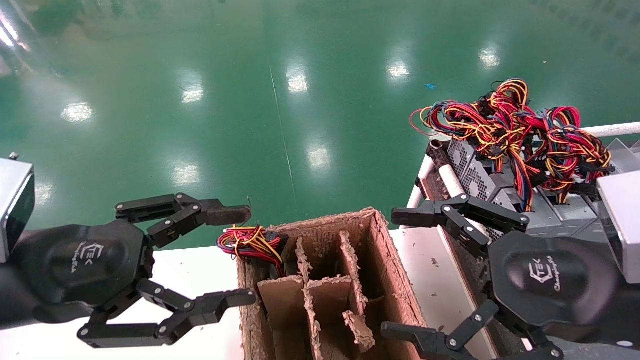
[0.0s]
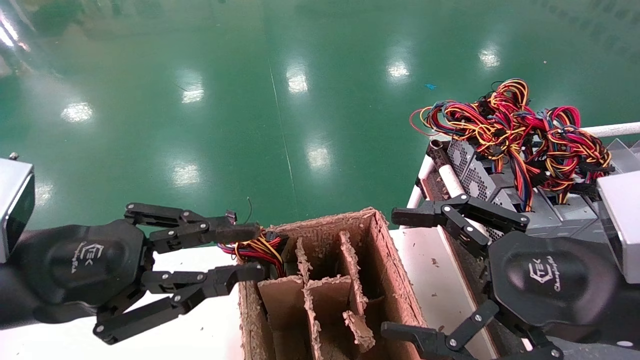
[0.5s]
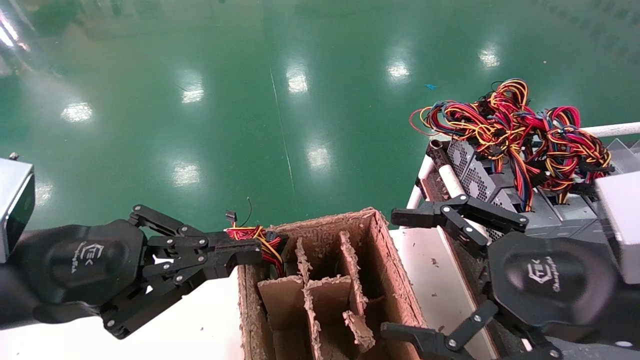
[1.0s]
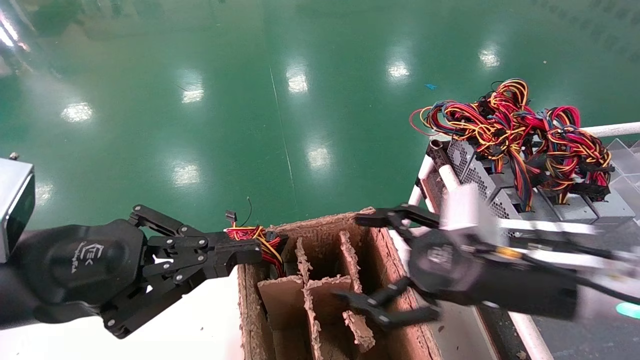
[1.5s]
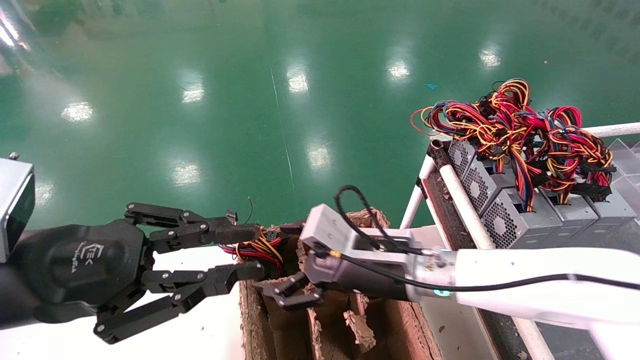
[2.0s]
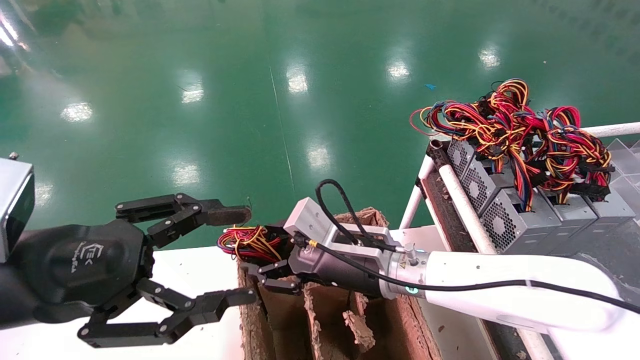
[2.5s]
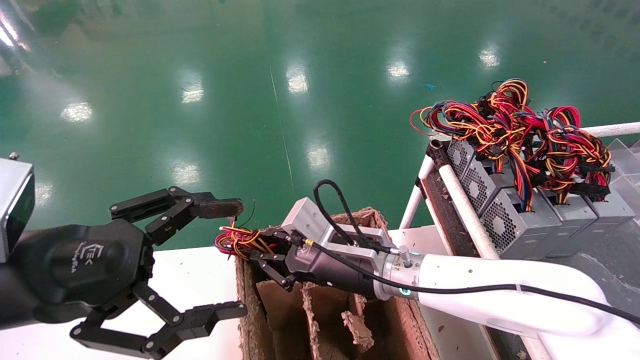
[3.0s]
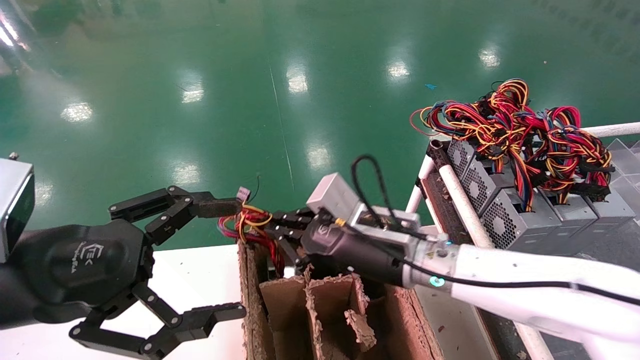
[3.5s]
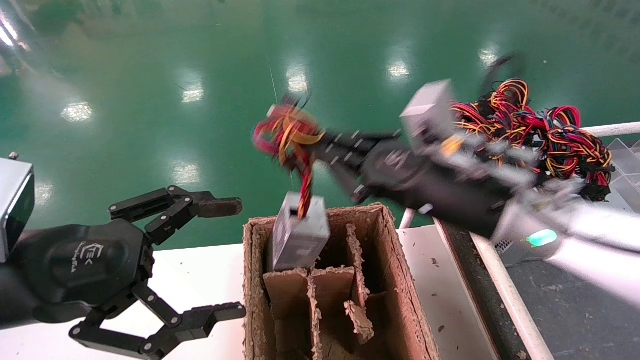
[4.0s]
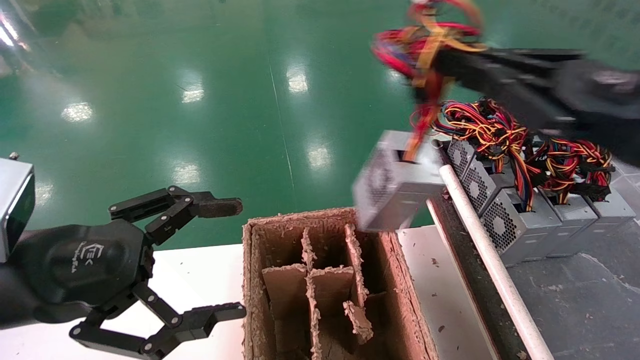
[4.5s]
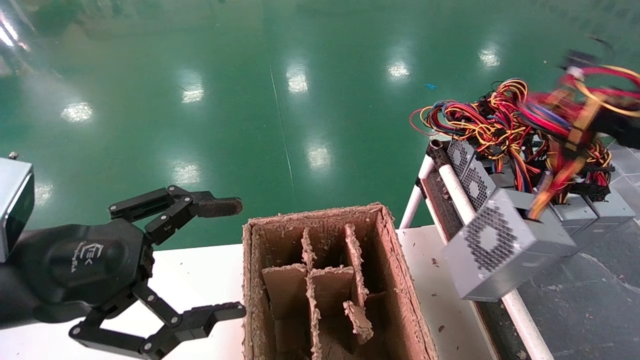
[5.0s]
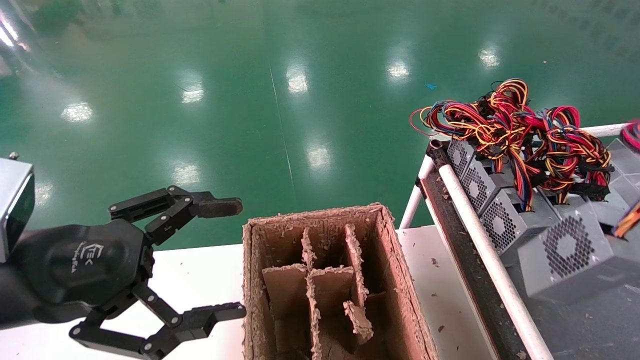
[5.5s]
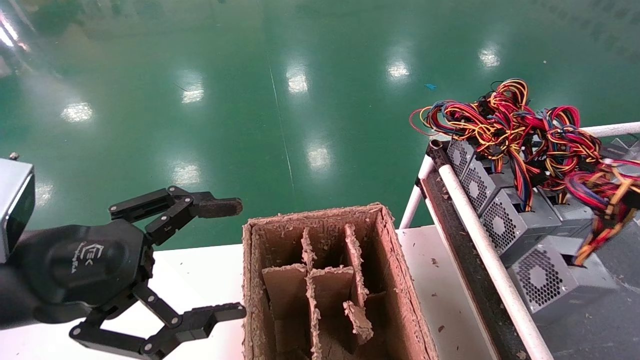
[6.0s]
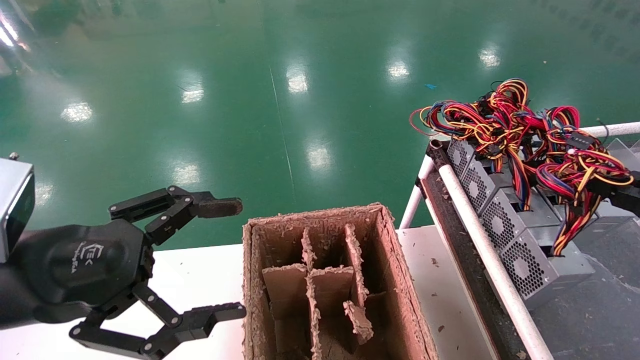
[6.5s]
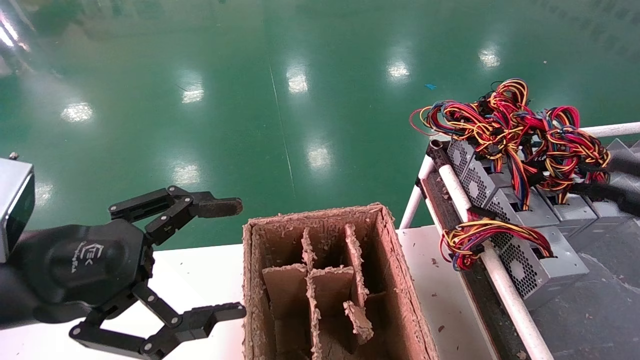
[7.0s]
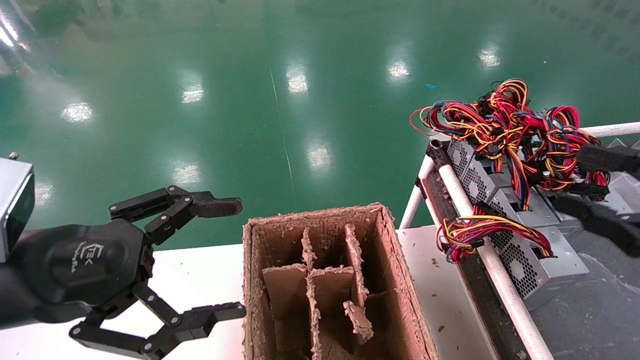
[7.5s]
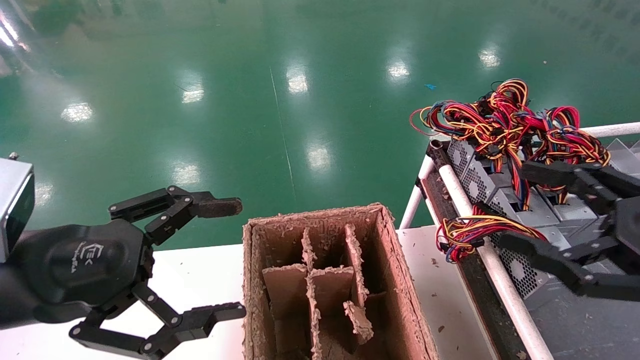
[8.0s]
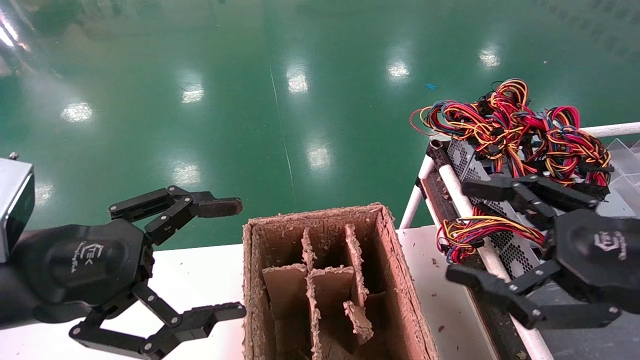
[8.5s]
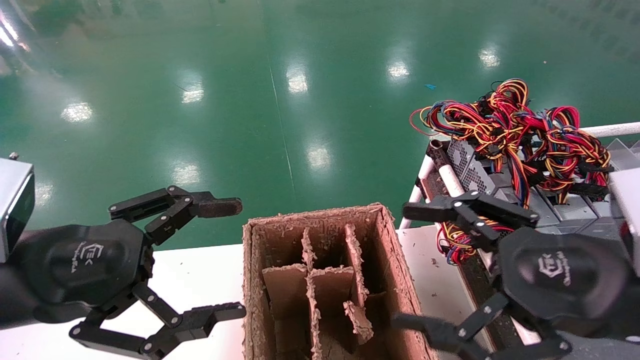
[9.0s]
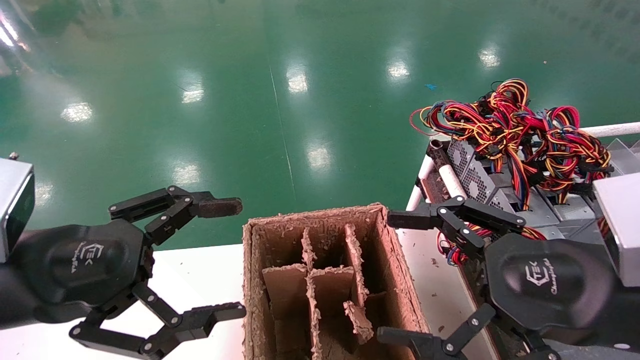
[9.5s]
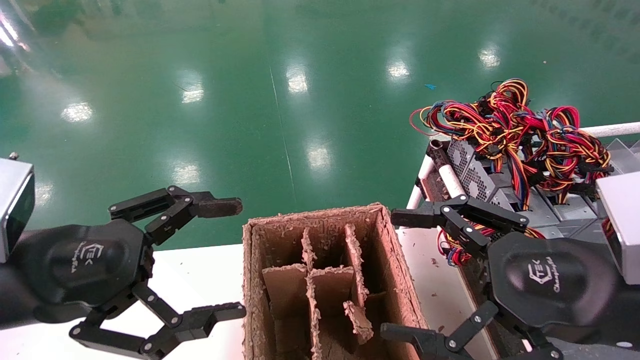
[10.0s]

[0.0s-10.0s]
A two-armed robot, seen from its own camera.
Step, 1.5s to 3.5s: Grab and lift the power supply from the large box.
Step, 4.0s to 7.0s: Place the power supply on the operating table.
0.0s to 2.0s: The right gripper heads to the left, forward and downward, covering about 25 cm. The left gripper closes up.
2.0s to 4.0s: The left gripper opens; the right gripper shifts about 15 cm upward and to the right, and closes.
4.0s to 6.0s: The right gripper moves to the right and backward, about 35 cm.
6.0s to 8.0s: The right gripper moves to the left, some 10 cm, and opens its fingers.
8.0s to 10.0s: The right gripper goes roughly 10 cm to the left.
